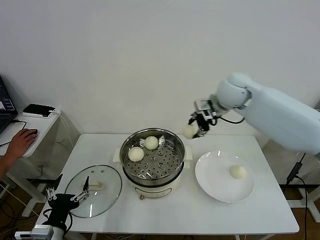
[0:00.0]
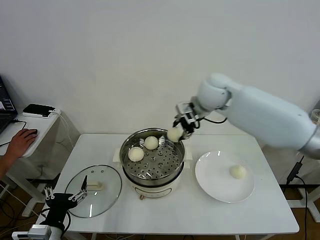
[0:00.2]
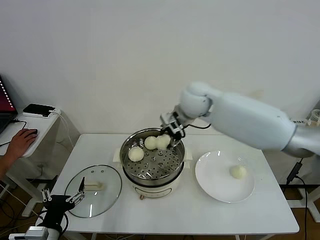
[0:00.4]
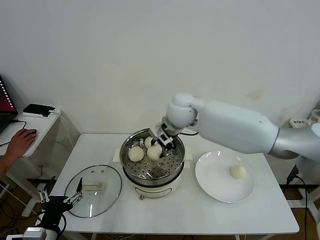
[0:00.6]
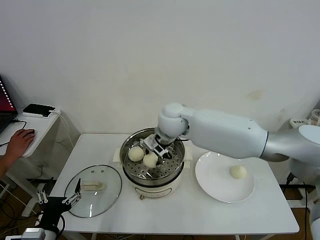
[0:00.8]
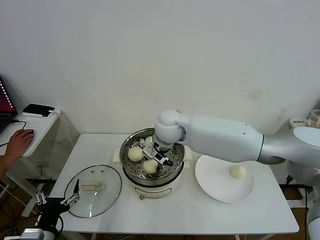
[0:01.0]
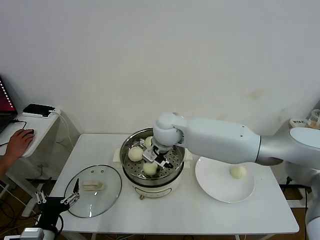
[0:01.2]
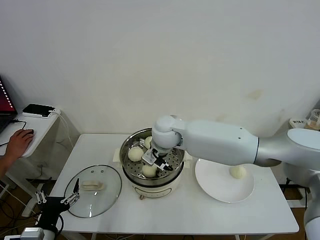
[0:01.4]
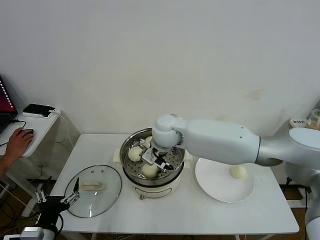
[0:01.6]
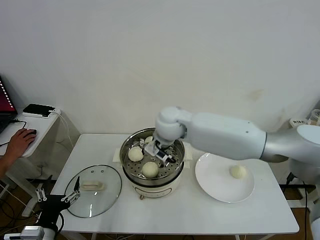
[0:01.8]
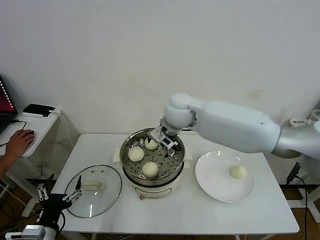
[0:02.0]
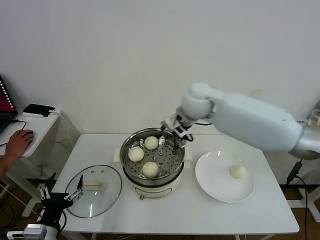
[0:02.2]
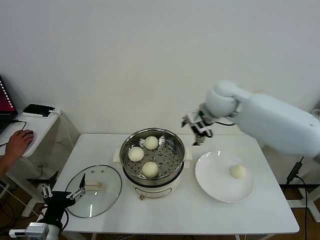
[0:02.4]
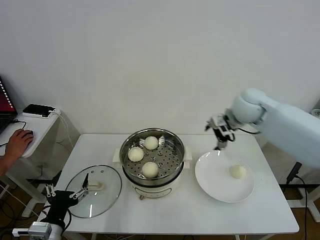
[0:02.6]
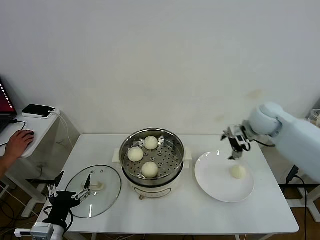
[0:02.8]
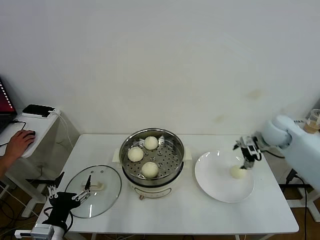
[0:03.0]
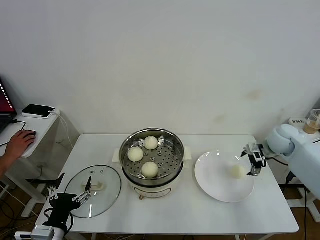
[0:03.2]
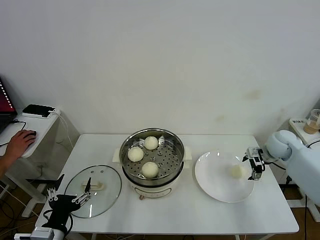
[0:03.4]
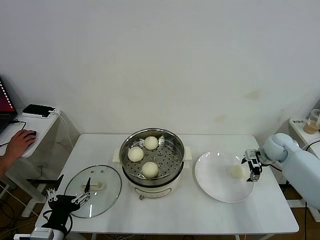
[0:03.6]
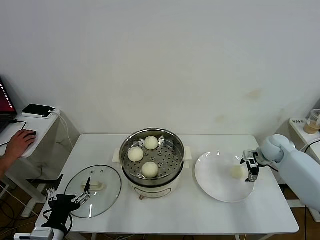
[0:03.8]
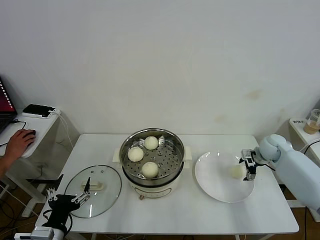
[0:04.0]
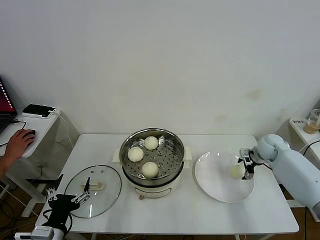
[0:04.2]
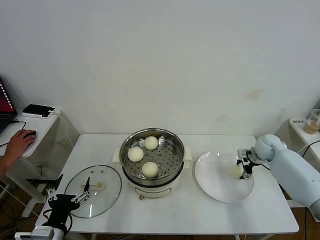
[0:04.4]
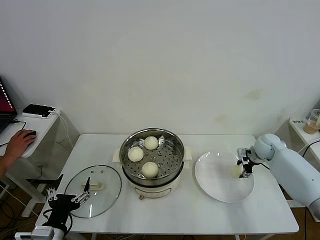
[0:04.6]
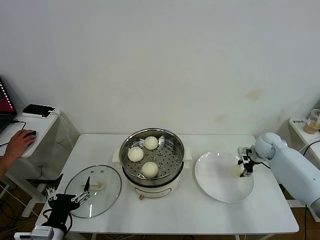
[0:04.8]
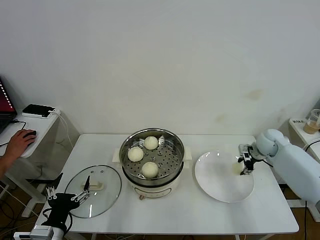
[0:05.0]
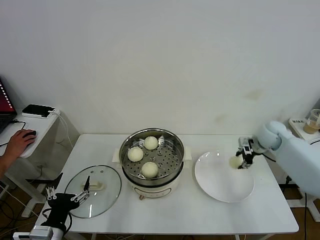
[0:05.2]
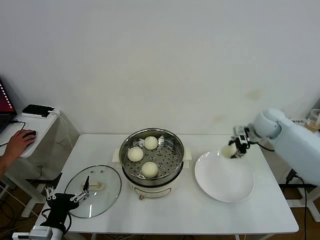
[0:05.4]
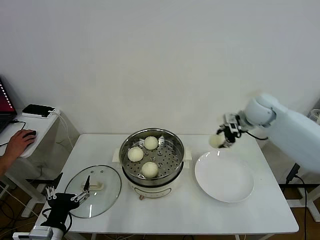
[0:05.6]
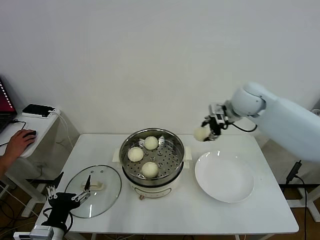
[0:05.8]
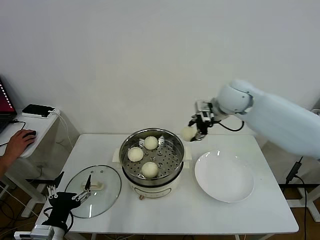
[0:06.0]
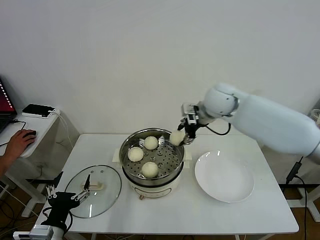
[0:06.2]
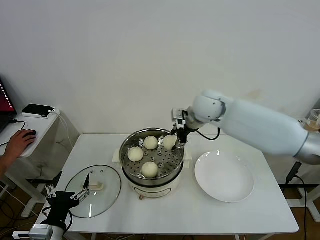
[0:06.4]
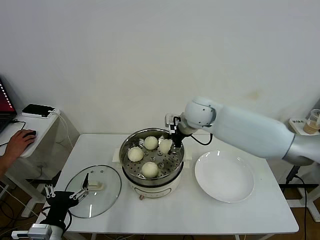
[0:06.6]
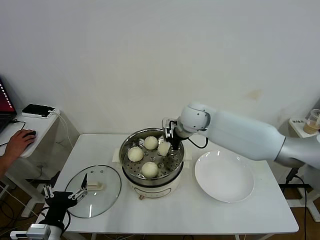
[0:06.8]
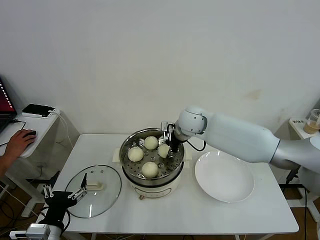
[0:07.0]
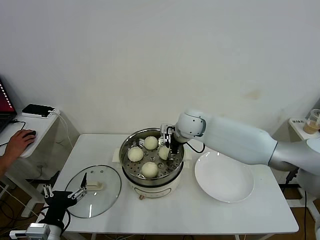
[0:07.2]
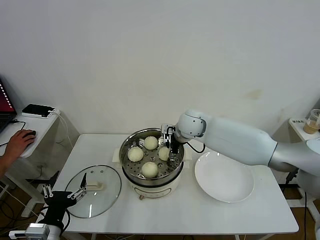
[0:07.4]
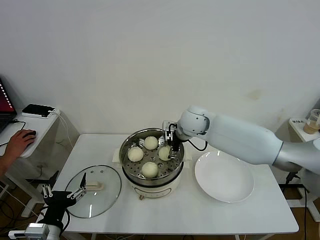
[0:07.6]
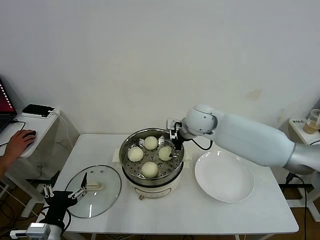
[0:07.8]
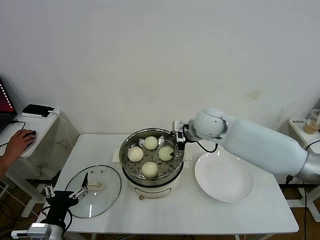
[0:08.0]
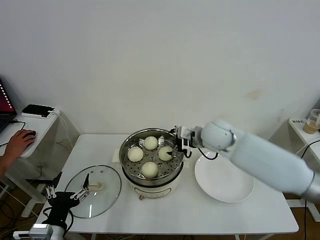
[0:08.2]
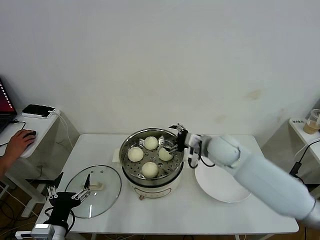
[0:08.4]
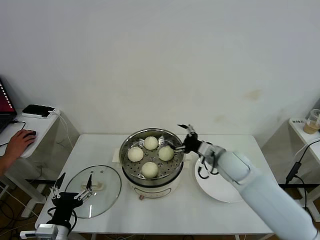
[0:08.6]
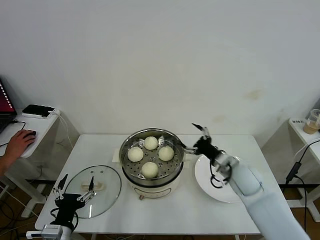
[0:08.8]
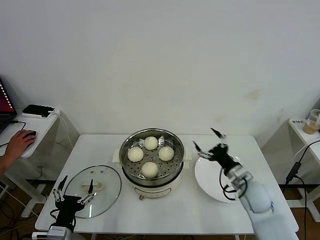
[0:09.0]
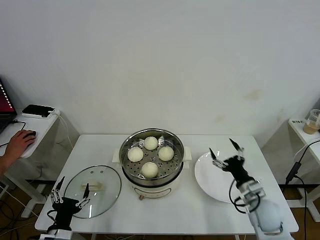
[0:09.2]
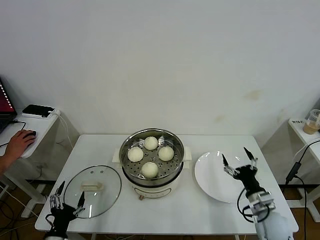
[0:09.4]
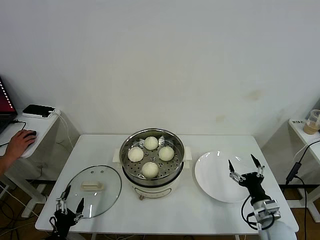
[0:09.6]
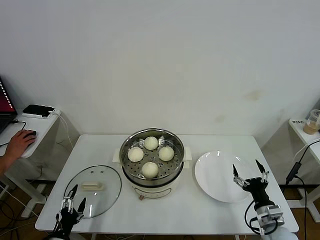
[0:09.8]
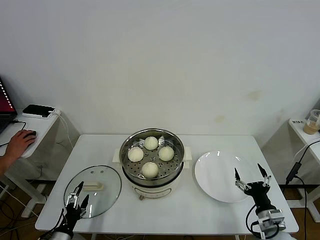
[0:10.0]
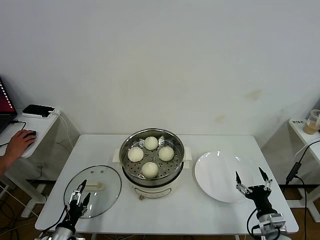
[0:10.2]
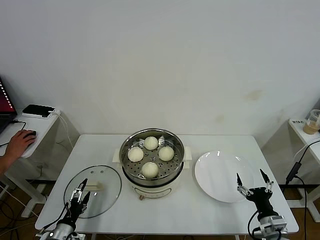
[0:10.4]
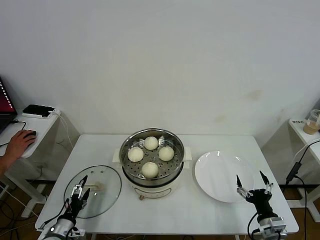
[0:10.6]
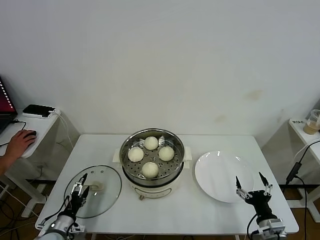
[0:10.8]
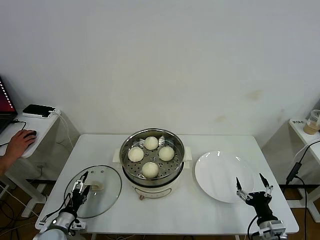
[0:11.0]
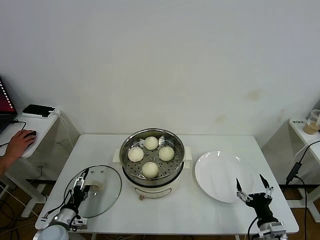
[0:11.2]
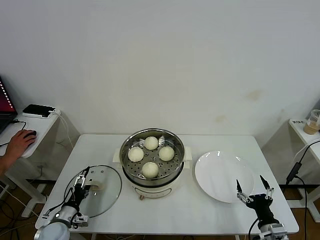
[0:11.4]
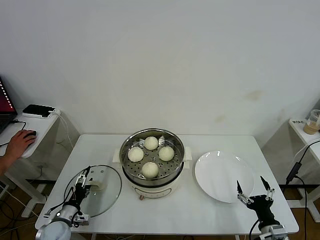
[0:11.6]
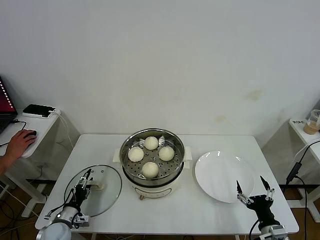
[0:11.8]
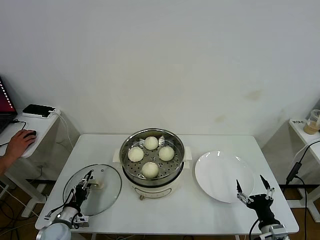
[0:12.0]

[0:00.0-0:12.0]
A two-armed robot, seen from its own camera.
Task of the whole recording: take steamed baozi put them in steamer then cover it.
Step, 0:00.0 to 0:01.8: Place the baozi on the steamer with right gripper.
Step, 0:02.0 to 0:04.8: Grasp the baozi in the plate with right gripper.
Step, 0:05.0 to 0:07.6: Place the baozi on the steamer with right gripper.
0:00.0 to 0:01.6: The right gripper shifts some 20 cm to the left and downward, and opens its fingers.
0:01.6 to 0:03.0: The right gripper travels to the right by some 35 cm.
0:03.0 to 0:04.4: The right gripper shifts roughly 10 cm downward, and closes its fingers.
0:04.4 to 0:06.0: The right gripper travels upward and to the left by approximately 30 cm, and closes.
0:06.0 to 0:07.6: The right gripper travels to the left and downward by about 15 cm, and opens its fingers.
0:07.6 to 0:09.0: The right gripper shifts approximately 30 cm to the right, backward and downward.
0:09.0 to 0:10.4: The right gripper heads backward, downward and to the right, covering roughly 20 cm, while the left gripper heads downward and to the left, covering approximately 15 cm.
0:10.4 to 0:12.0: The left gripper heads forward, covering roughly 5 cm, and closes up.

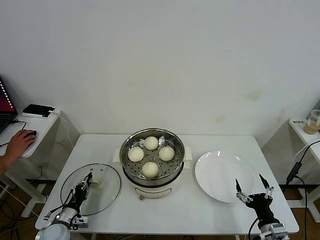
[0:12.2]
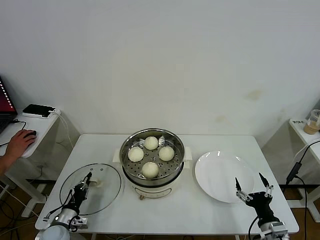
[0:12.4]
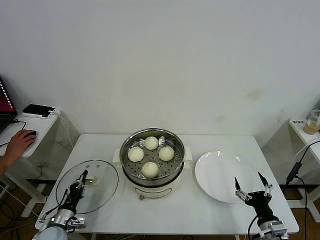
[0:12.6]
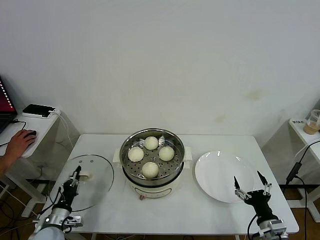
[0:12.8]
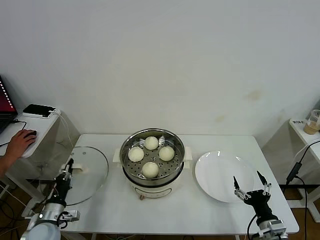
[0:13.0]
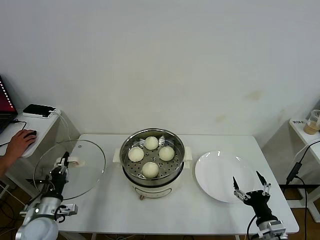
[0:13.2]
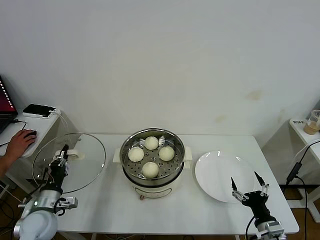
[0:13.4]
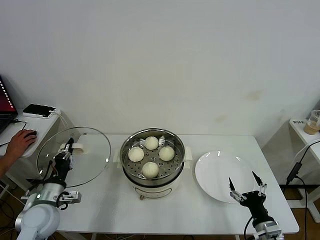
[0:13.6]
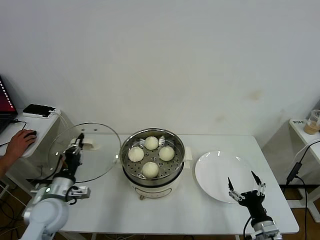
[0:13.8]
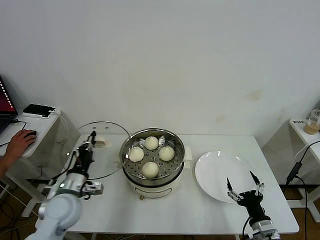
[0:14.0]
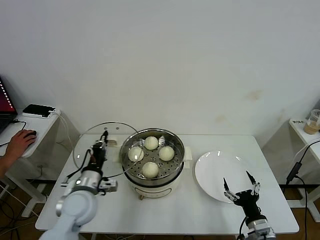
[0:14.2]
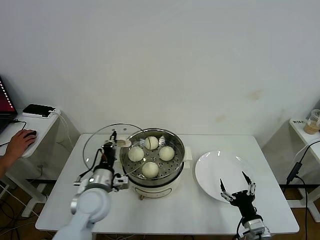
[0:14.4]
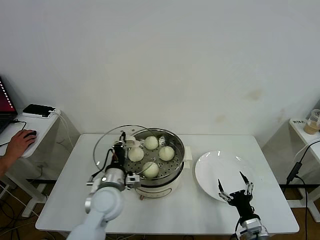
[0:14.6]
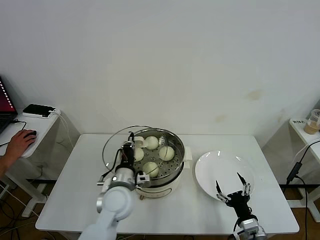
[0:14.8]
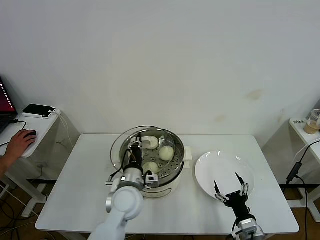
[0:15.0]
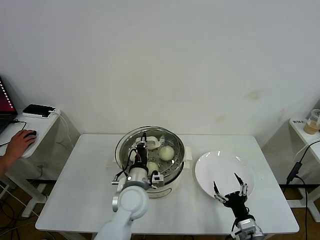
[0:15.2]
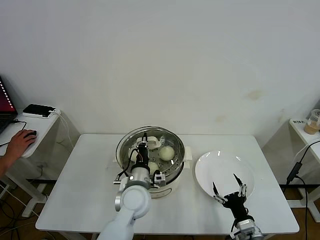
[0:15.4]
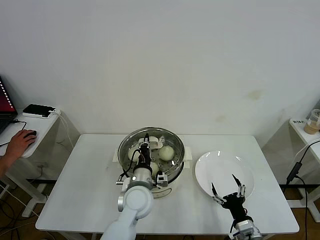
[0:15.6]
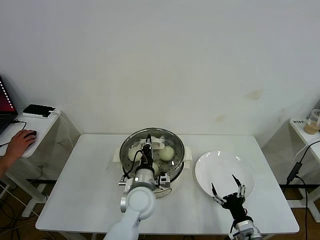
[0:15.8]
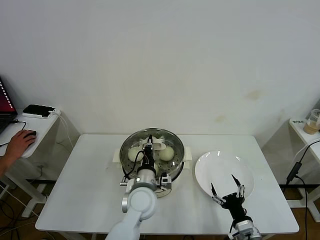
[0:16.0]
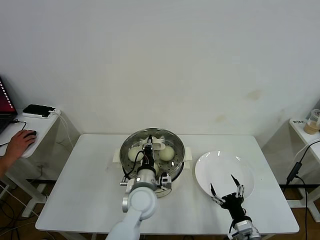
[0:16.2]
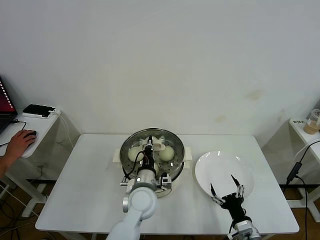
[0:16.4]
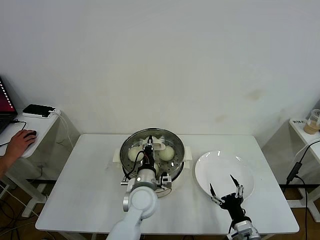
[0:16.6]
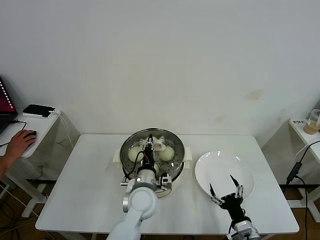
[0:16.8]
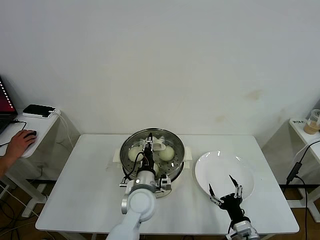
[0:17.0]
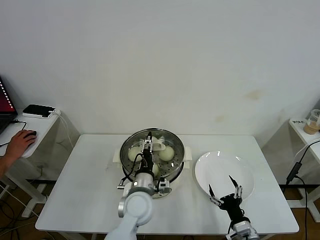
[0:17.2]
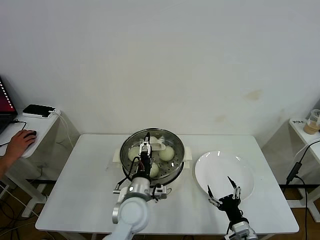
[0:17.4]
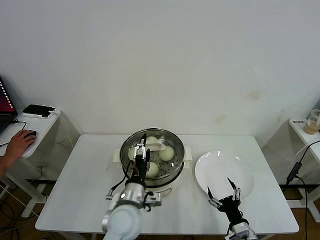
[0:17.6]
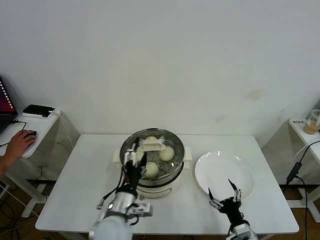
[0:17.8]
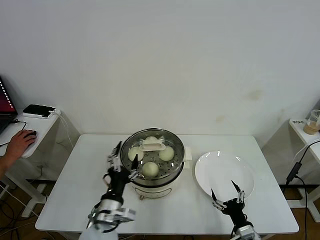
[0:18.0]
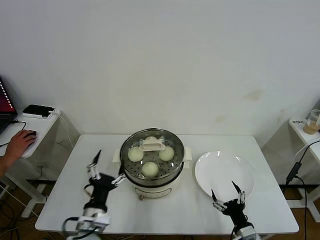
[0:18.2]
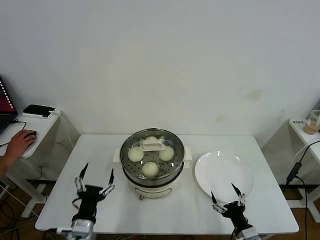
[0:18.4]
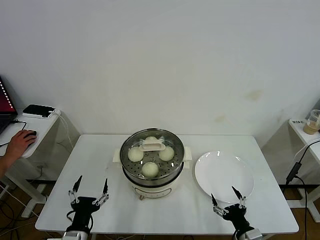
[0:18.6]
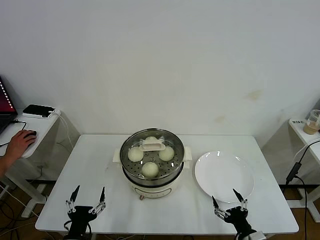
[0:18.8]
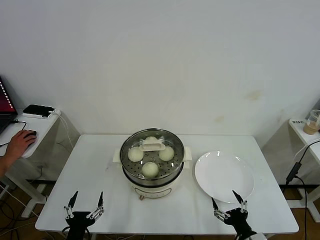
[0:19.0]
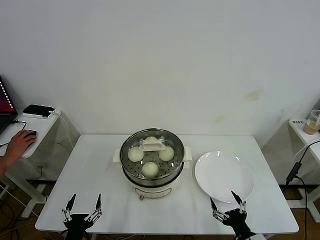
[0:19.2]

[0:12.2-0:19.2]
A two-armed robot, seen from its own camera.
Task of the whole recording: take steamed baozi put them in steamer then cover it.
Step, 0:12.2 to 0:17.0: Place the pot lid on the steamer with left gripper.
0:12.2 to 0:13.6: The left gripper is displaced upward by about 15 cm.
0:13.6 to 0:15.0: The left gripper heads to the right, covering approximately 25 cm.
0:15.0 to 0:16.4: The left gripper changes place by roughly 5 cm.
0:16.4 to 0:17.8: The left gripper heads backward and to the left, covering roughly 10 cm, and opens.
0:17.8 to 0:19.2: The left gripper travels to the left, backward and downward by about 20 cm, while the right gripper shifts by about 5 cm.

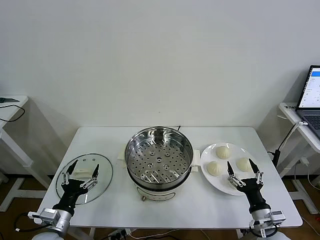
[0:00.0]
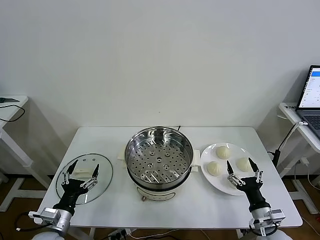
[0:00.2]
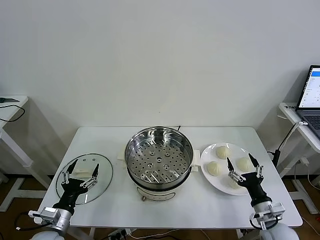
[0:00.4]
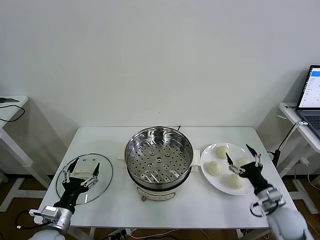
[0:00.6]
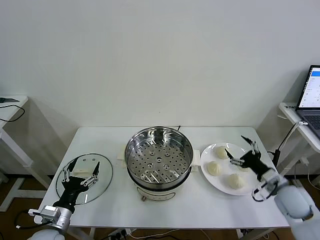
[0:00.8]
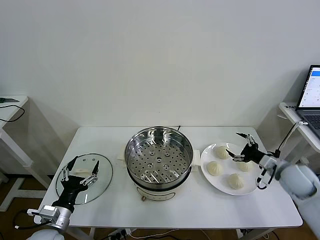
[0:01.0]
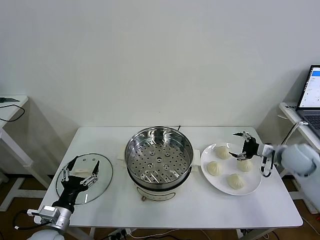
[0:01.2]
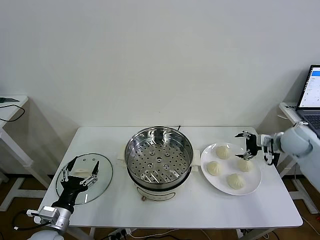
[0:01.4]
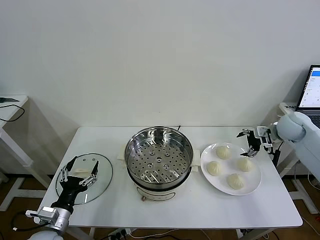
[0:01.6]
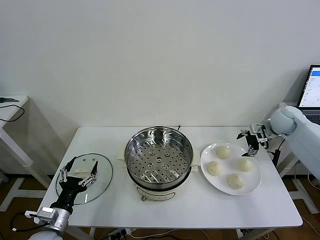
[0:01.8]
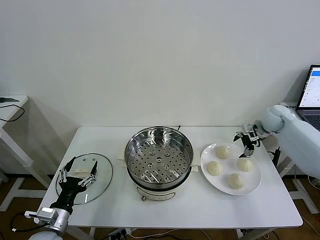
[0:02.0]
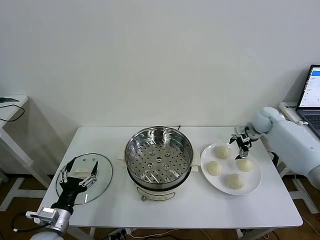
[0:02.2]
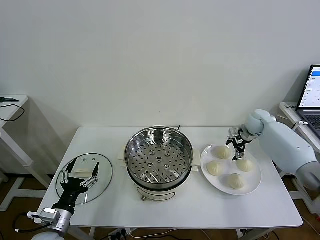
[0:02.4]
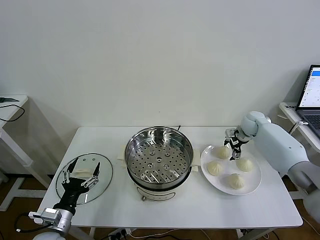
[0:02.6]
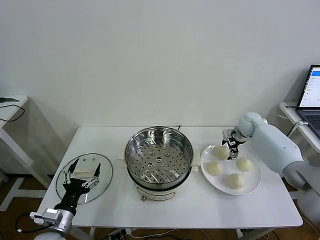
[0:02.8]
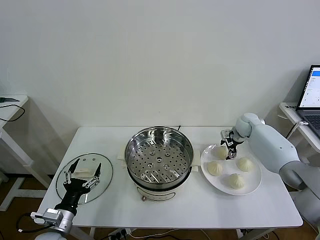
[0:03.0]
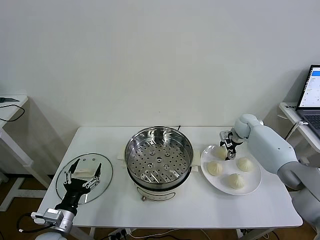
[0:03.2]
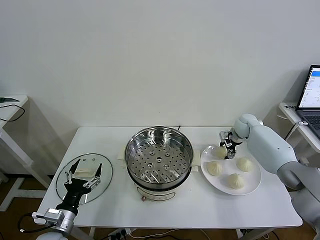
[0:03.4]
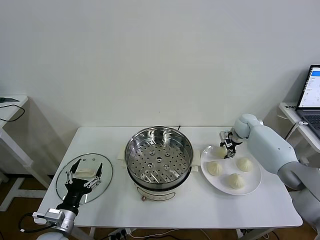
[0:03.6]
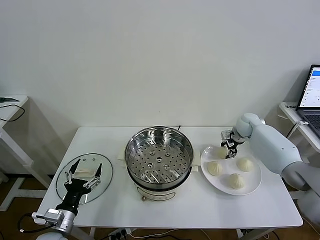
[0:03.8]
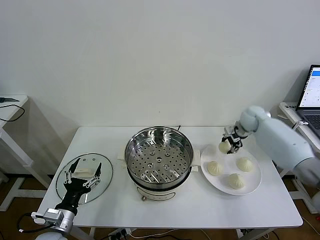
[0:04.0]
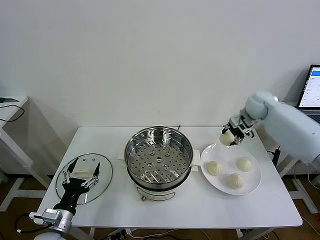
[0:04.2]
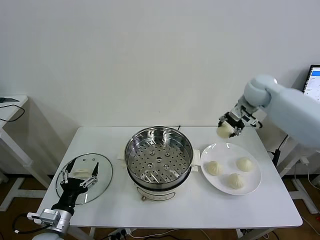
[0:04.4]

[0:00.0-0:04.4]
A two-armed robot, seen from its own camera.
Task of the whole recording: take steamed baozi put them in steamer then cover it.
Step, 0:00.0 to 0:03.4: Grasp the baozi in the plate with right gripper.
0:01.4 to 0:03.0: The right gripper moves forward, downward and to the left, approximately 15 cm.
0:03.0 to 0:04.4: The right gripper travels upward by some 25 cm, and closes up.
